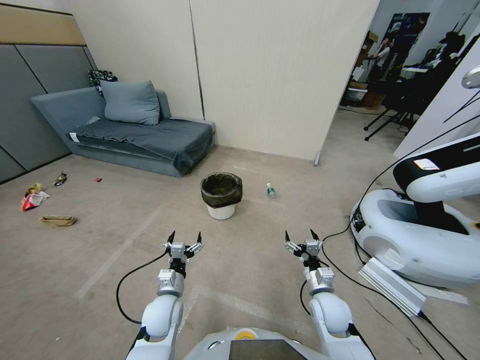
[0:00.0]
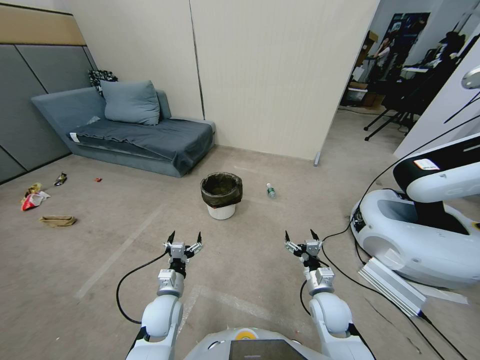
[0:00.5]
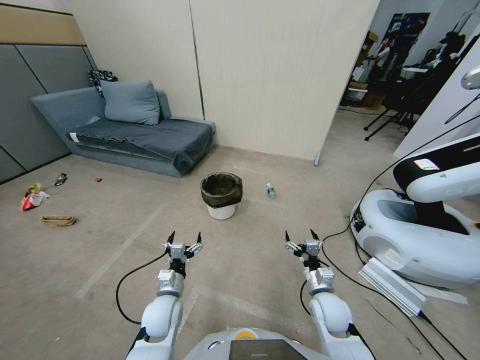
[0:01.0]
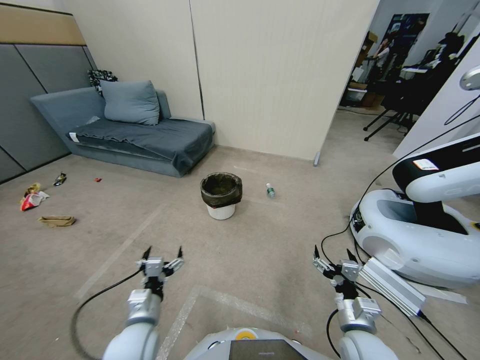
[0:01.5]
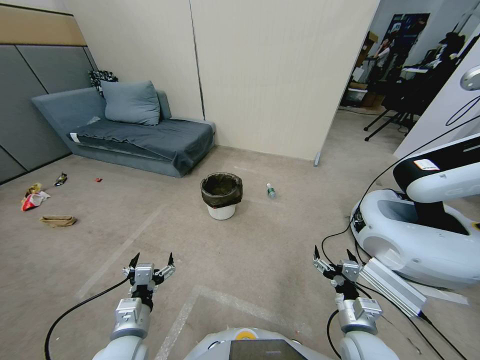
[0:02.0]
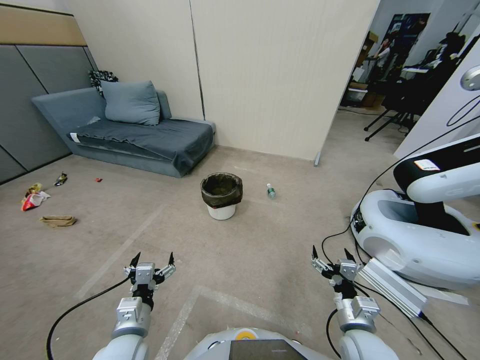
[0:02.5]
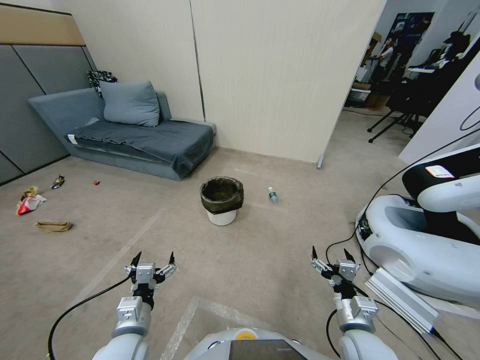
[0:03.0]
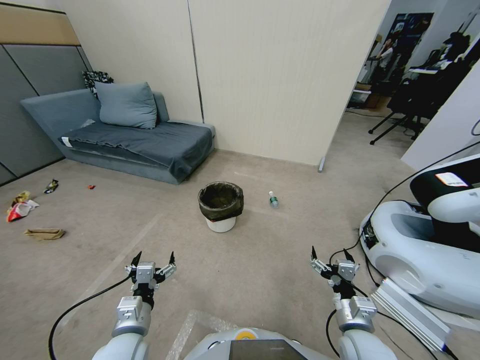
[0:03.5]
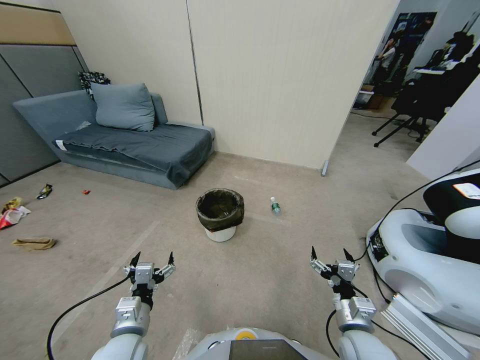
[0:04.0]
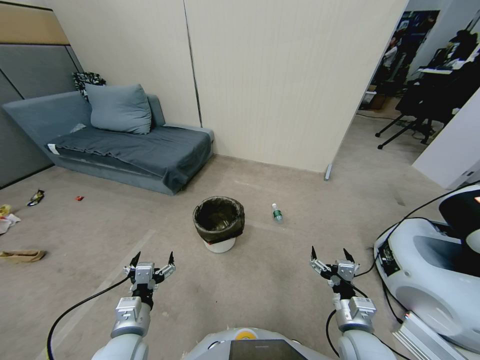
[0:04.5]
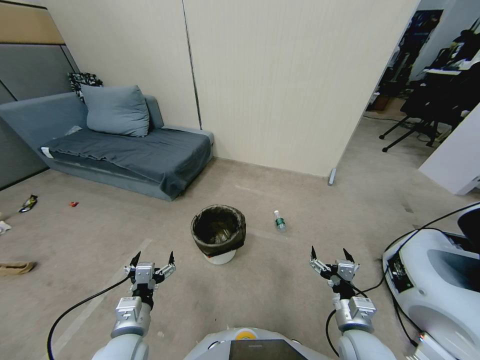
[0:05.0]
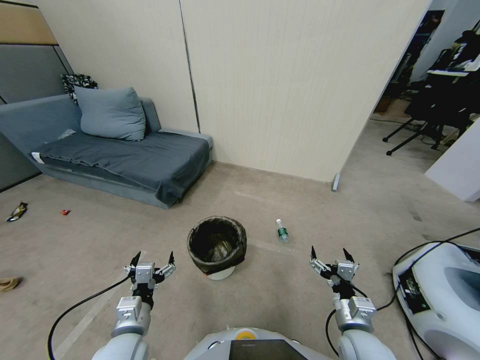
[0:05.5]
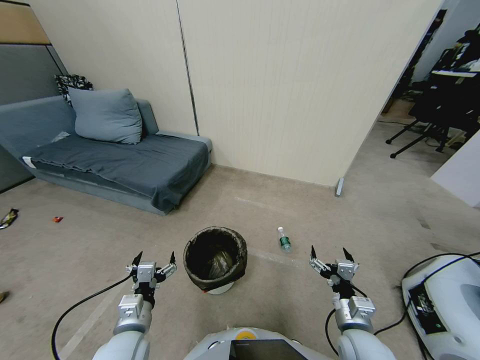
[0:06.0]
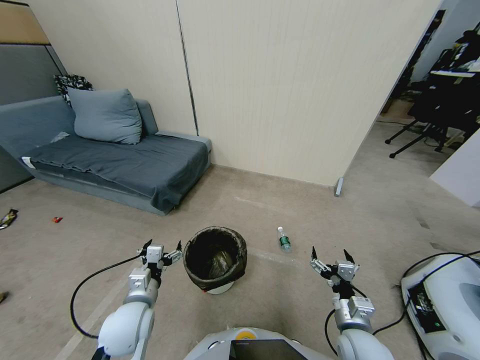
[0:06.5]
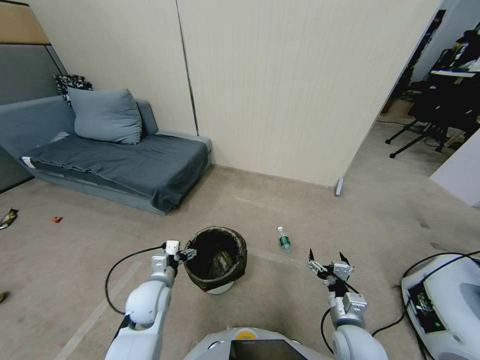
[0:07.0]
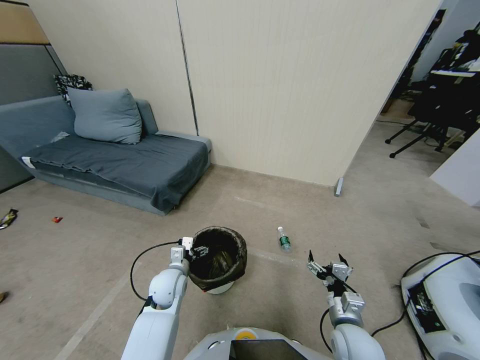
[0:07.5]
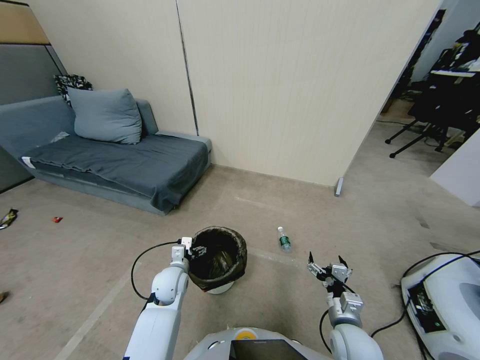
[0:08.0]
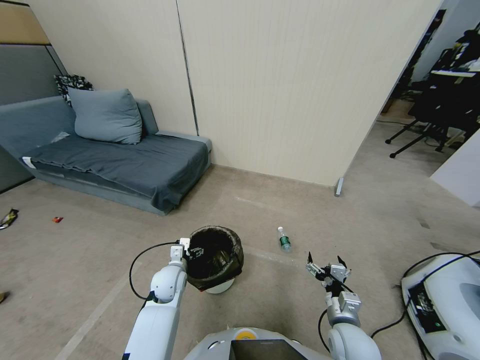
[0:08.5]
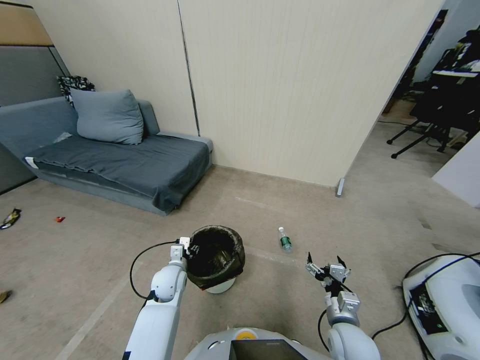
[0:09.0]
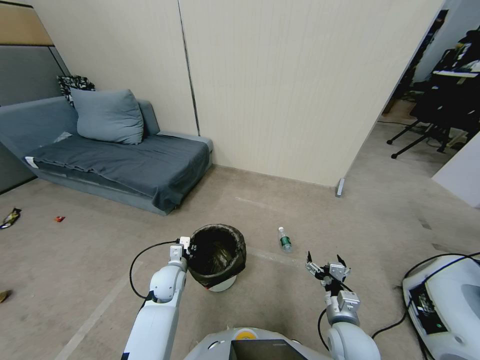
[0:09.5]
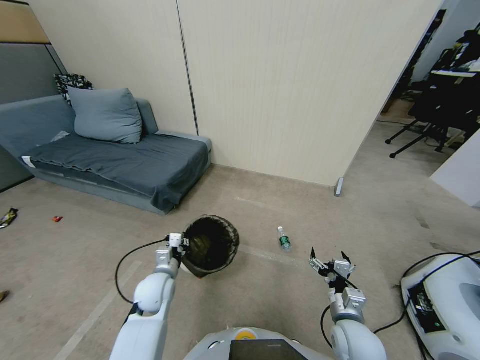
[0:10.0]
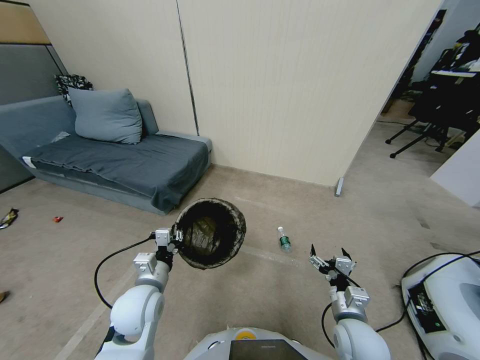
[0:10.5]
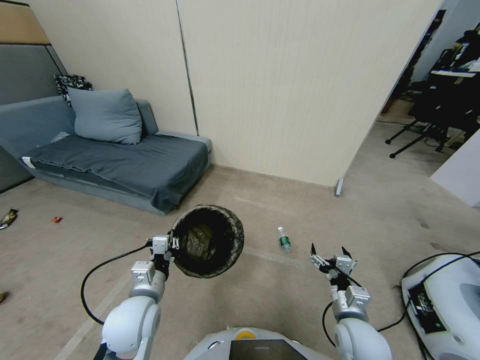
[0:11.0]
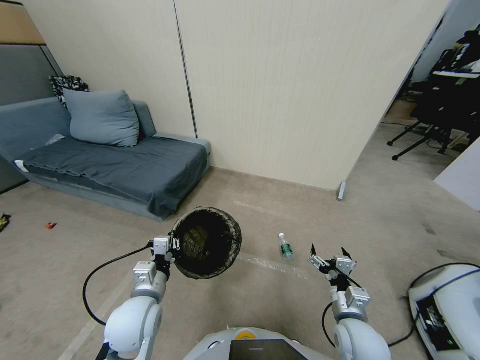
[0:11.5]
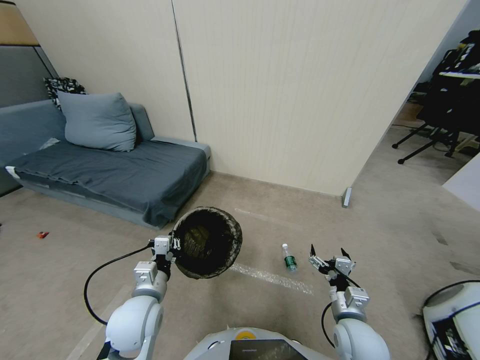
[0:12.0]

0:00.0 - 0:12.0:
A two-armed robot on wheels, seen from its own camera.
Task of the whole recording: Pick up the trash bin, then pick up the garbage from the floor and place it into the trash bin.
0:06.0 - 0:08.0: The left gripper shifts some 15 cm forward.
0:08.0 - 0:10.0: The left gripper is displaced upward and backward by some 10 cm, and closes.
0:10.0 - 0:12.0: The left gripper moves backward, about 5 cm.

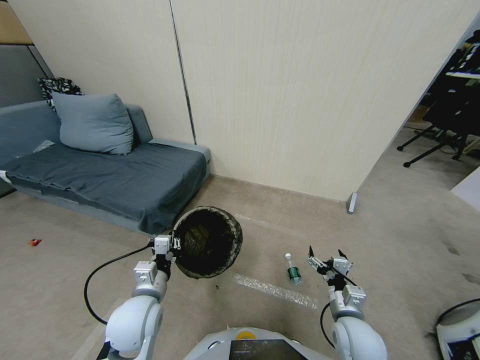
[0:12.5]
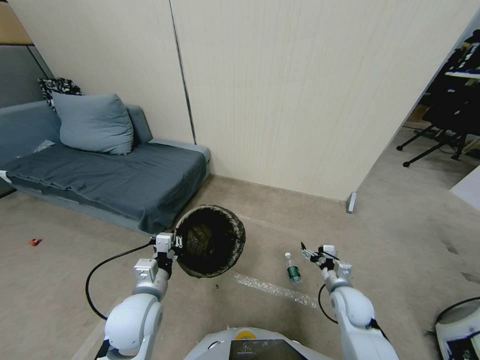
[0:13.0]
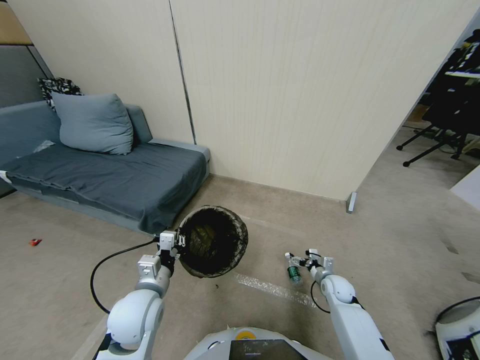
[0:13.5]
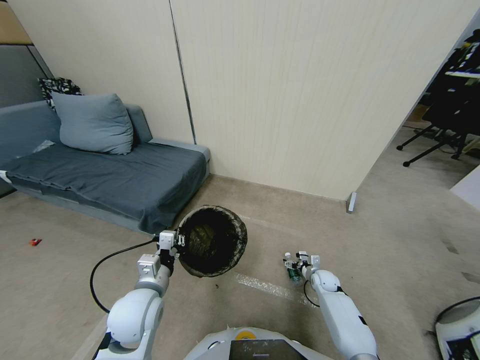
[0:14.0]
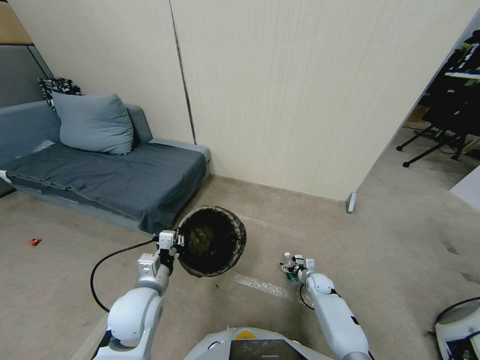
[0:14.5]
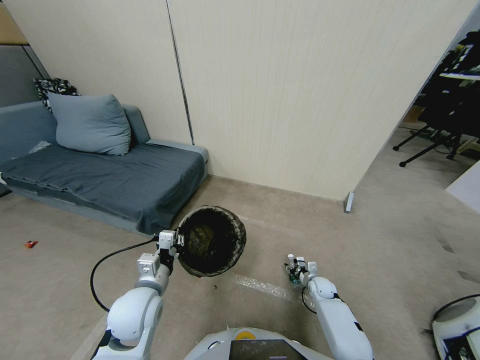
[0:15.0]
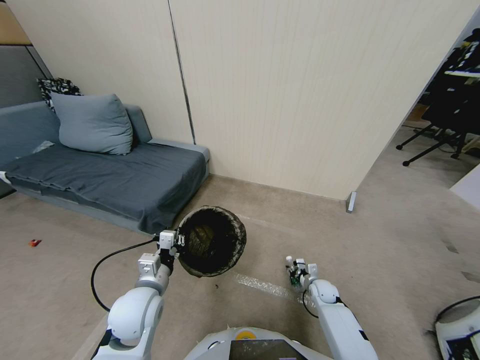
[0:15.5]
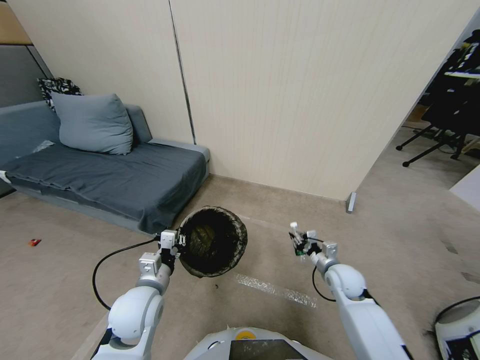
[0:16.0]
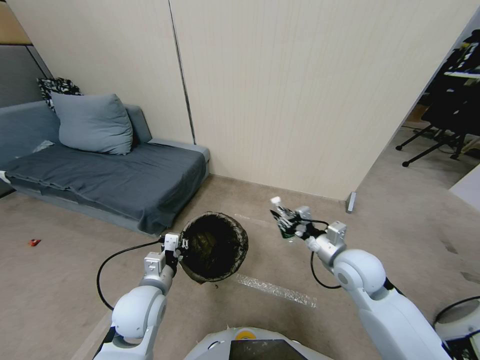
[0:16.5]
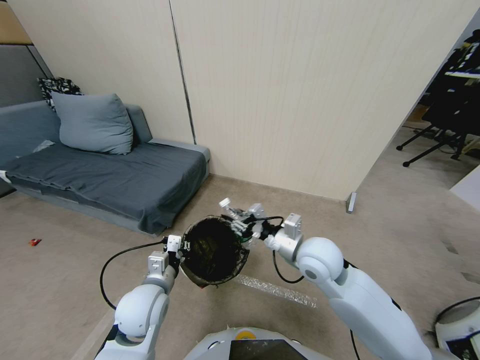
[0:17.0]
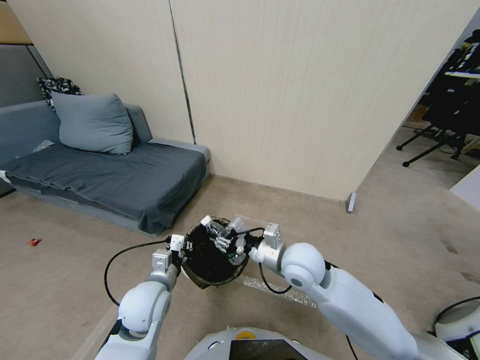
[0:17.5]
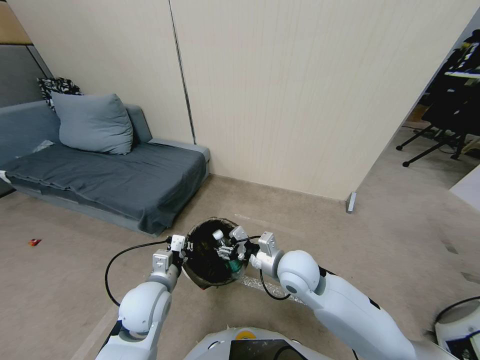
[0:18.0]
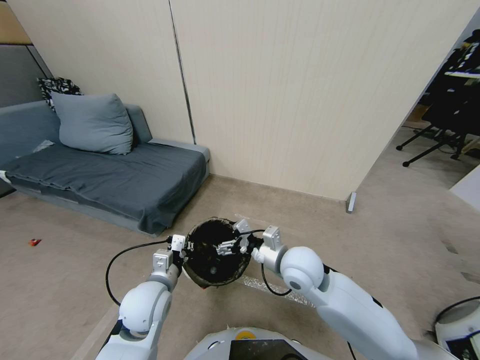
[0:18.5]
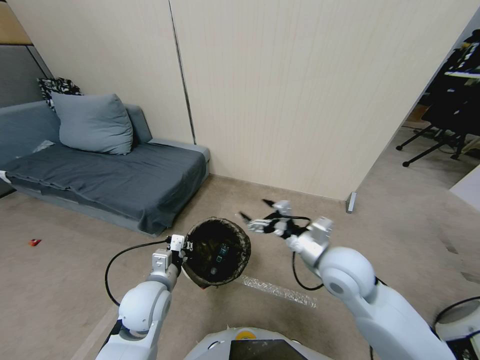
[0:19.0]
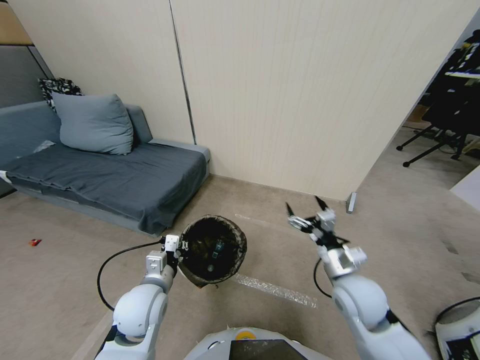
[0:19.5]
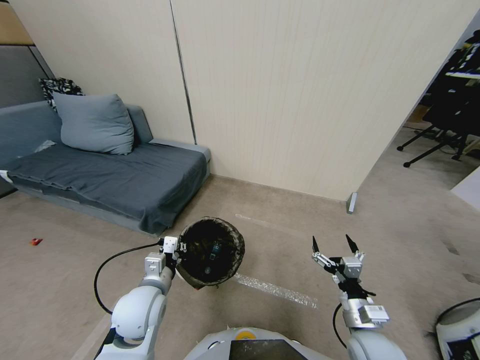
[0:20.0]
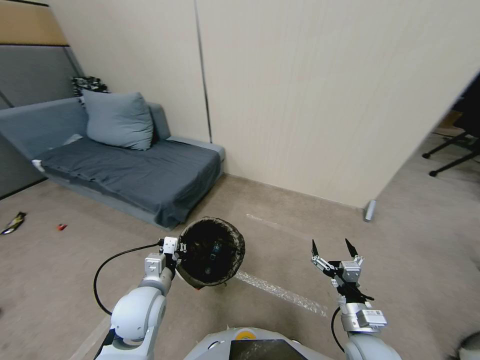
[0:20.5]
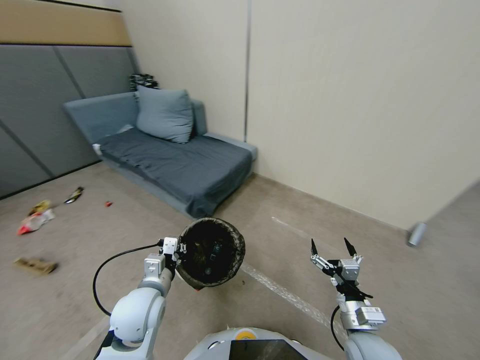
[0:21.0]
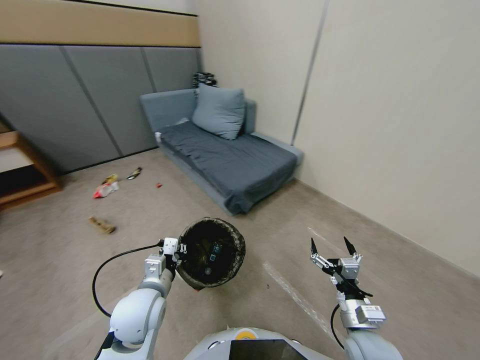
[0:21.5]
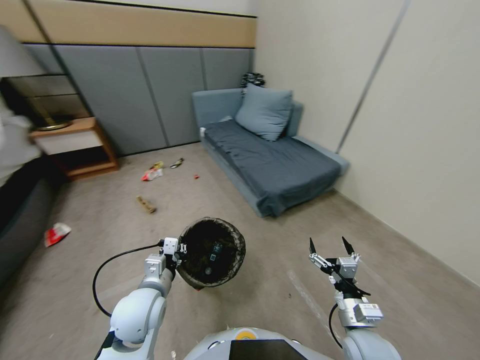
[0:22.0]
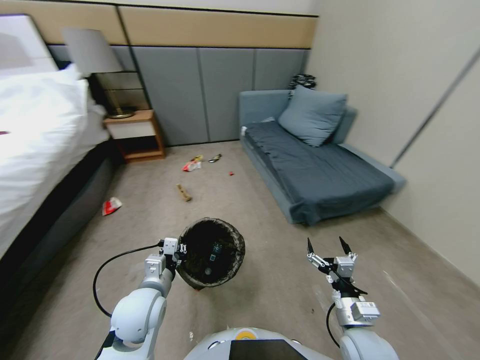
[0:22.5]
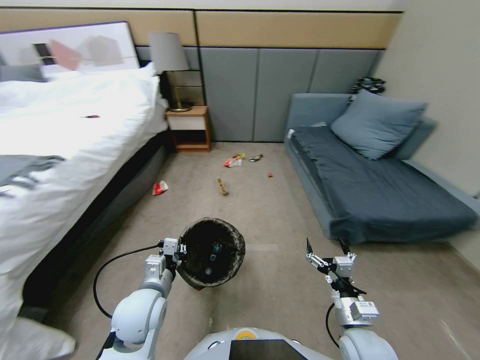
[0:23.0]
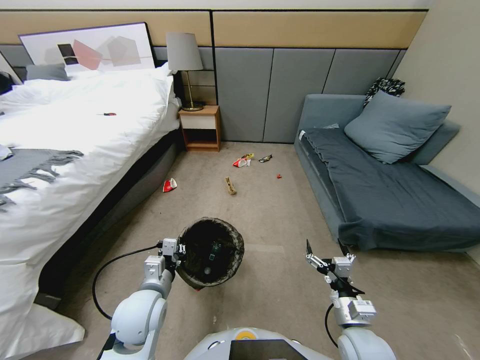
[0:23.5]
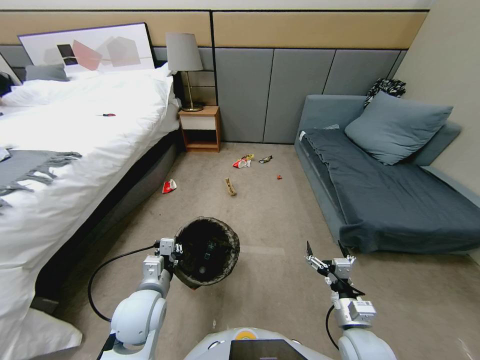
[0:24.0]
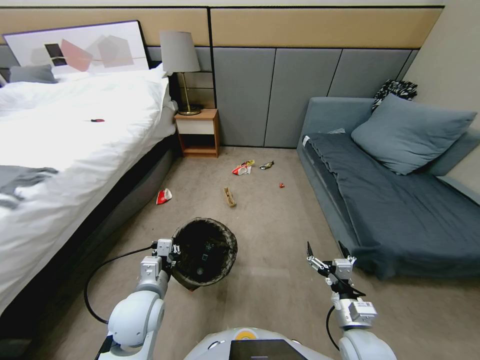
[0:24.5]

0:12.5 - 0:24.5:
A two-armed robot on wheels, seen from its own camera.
Task of the whole recording: Pick up the trash bin, then pick up the garbage from the floor and place it into the trash bin.
0:12.5 - 0:14.5: The right gripper heads downward and forward, covering approximately 25 cm.
0:14.5 - 0:16.5: The right gripper shifts about 35 cm upward, and closes up.
0:16.5 - 0:18.5: The right gripper travels to the left by some 10 cm, and opens.
0:18.5 - 0:20.5: The right gripper heads backward, downward and to the right, covering roughly 25 cm.

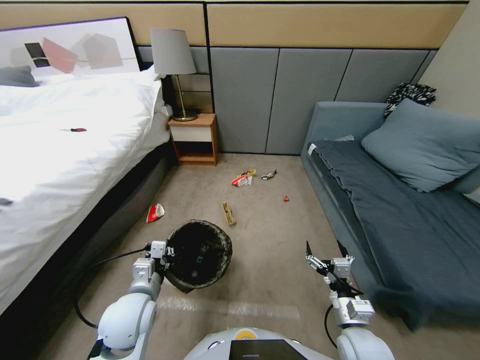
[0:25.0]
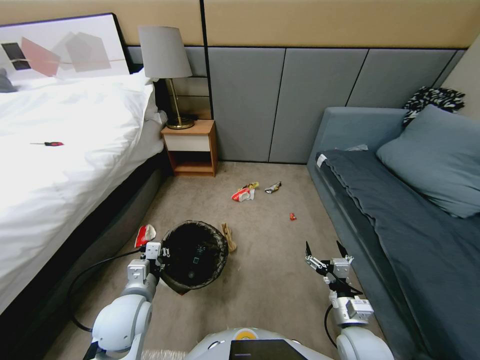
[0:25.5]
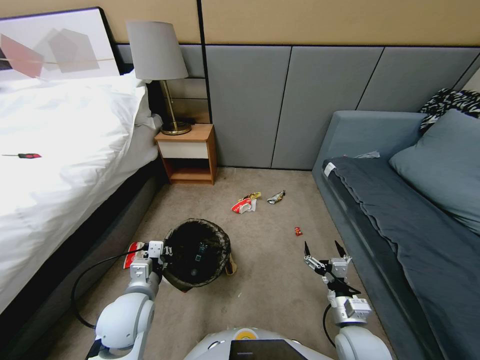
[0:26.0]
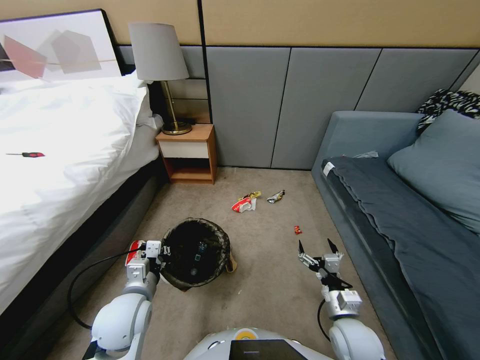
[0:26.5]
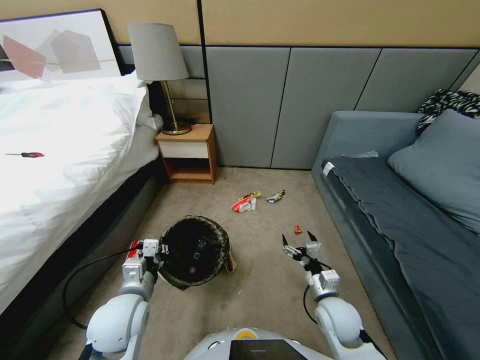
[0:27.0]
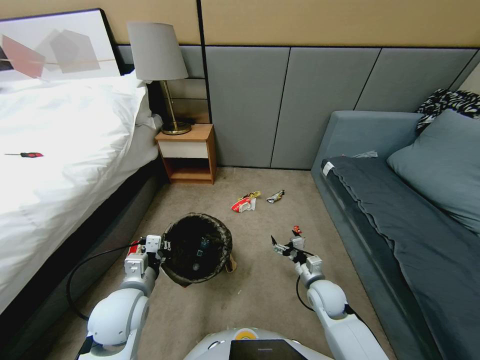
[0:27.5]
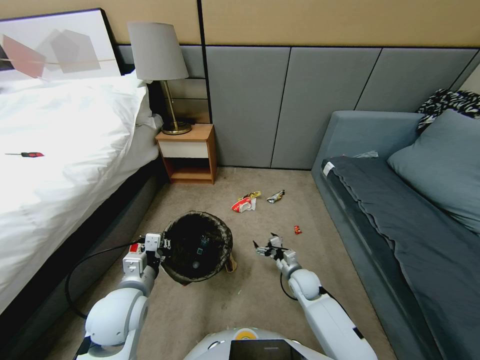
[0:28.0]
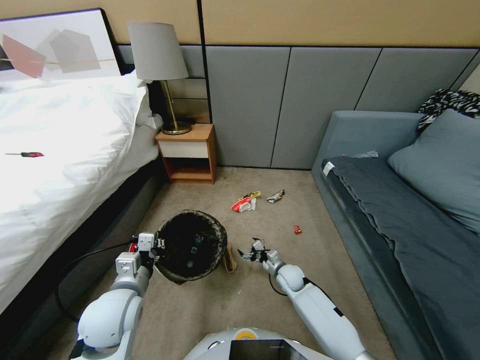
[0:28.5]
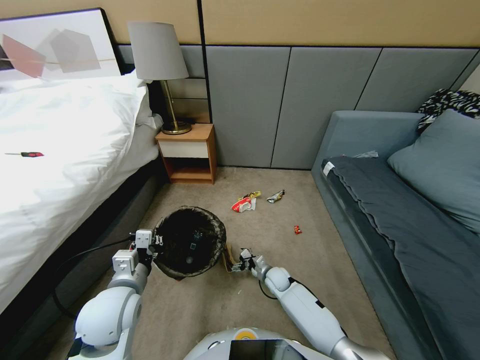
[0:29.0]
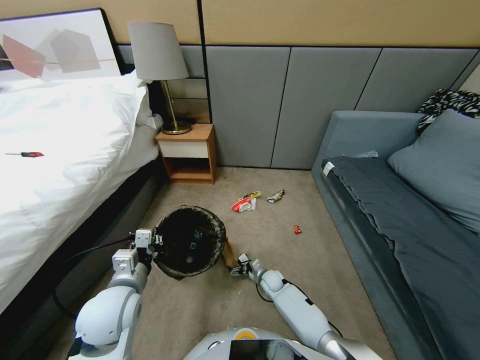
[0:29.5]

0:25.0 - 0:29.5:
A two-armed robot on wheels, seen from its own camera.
Task of the whole recording: Pick up the trash bin, then pick up the garbage from the floor and place it into the trash bin.
0:25.0 - 0:27.0: The right gripper shifts approximately 10 cm forward.
0:27.0 - 0:29.5: The right gripper heads downward, forward and to the left, covering approximately 30 cm.
